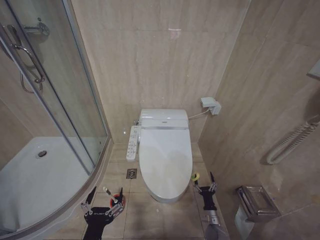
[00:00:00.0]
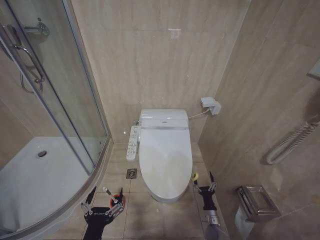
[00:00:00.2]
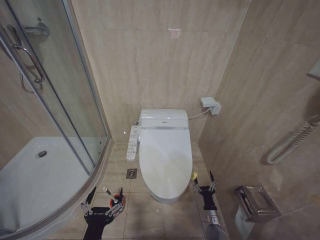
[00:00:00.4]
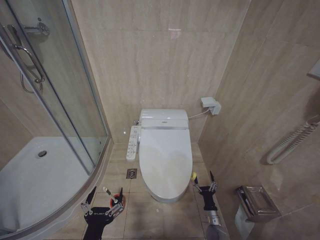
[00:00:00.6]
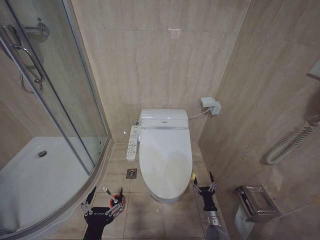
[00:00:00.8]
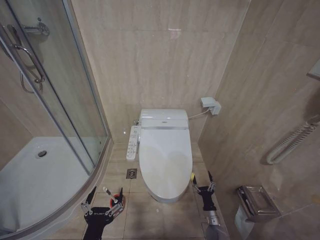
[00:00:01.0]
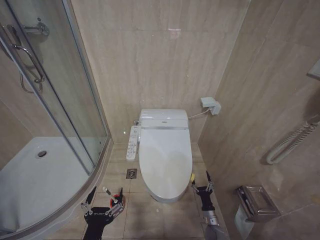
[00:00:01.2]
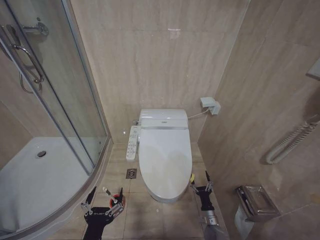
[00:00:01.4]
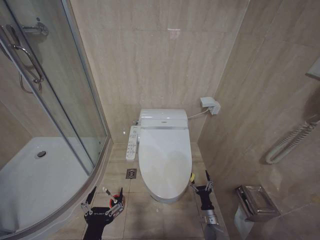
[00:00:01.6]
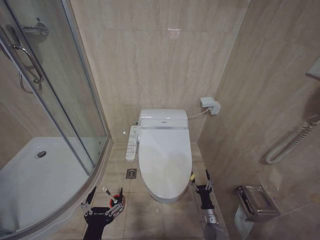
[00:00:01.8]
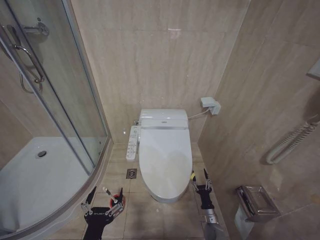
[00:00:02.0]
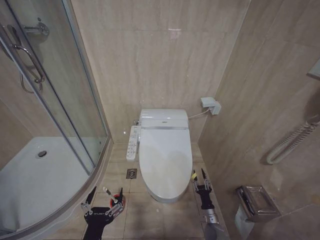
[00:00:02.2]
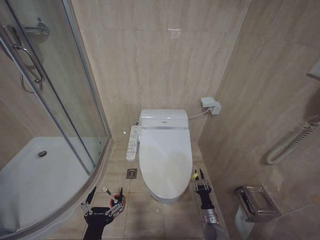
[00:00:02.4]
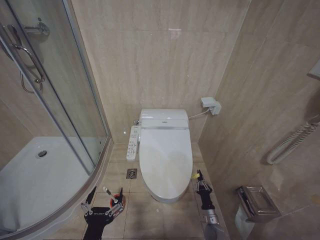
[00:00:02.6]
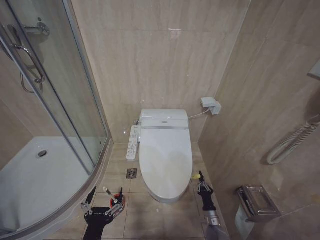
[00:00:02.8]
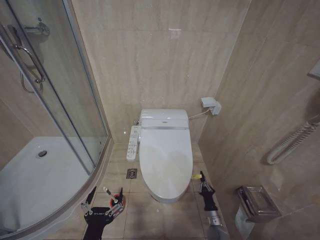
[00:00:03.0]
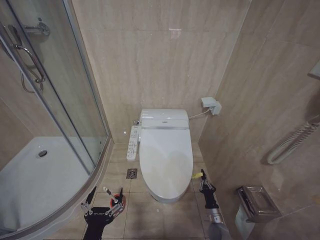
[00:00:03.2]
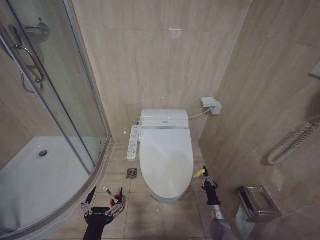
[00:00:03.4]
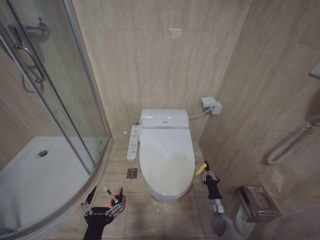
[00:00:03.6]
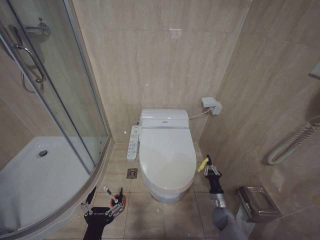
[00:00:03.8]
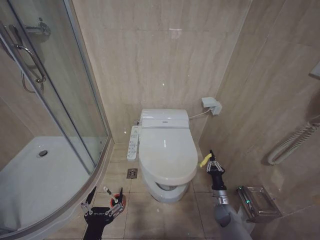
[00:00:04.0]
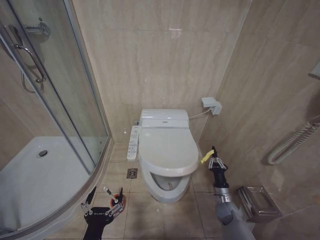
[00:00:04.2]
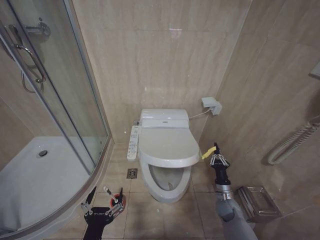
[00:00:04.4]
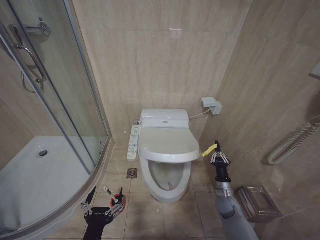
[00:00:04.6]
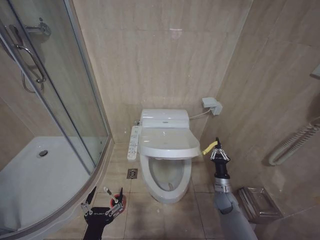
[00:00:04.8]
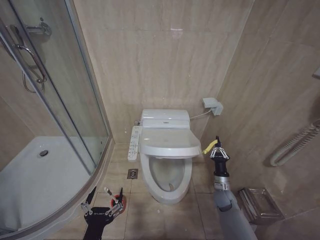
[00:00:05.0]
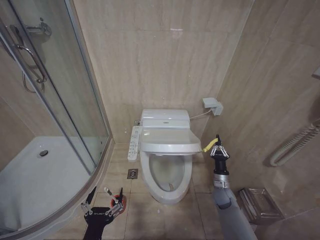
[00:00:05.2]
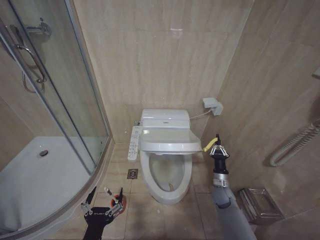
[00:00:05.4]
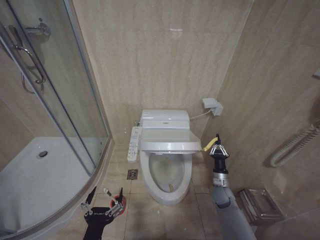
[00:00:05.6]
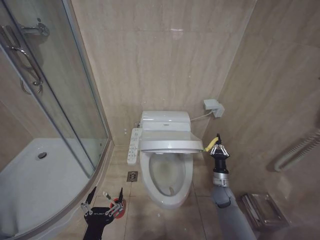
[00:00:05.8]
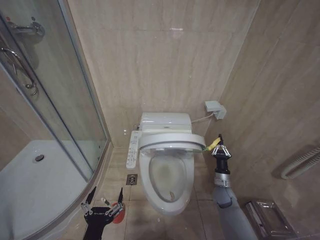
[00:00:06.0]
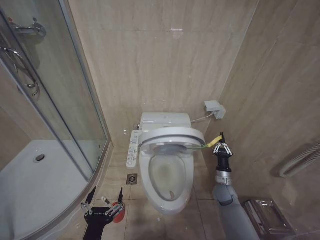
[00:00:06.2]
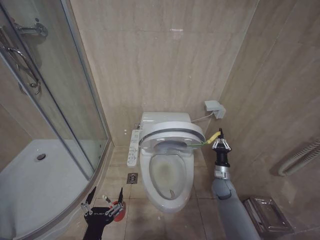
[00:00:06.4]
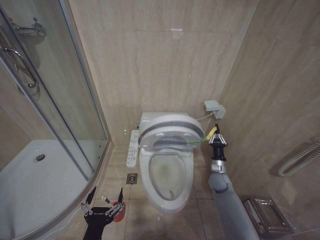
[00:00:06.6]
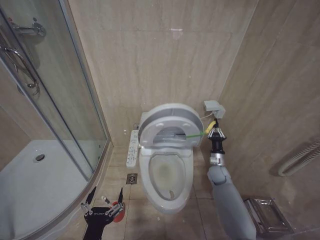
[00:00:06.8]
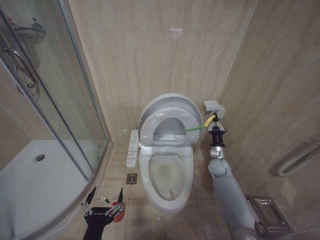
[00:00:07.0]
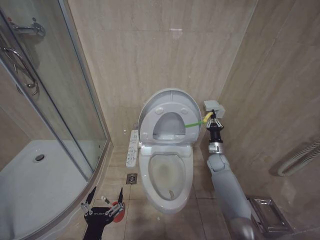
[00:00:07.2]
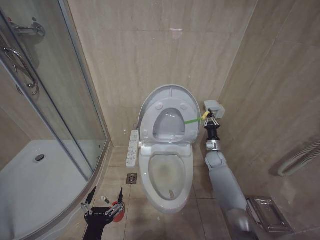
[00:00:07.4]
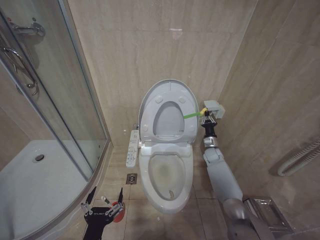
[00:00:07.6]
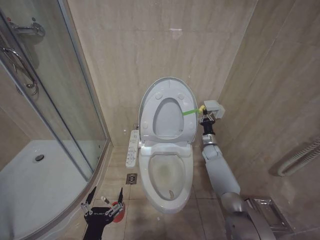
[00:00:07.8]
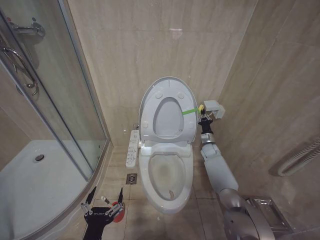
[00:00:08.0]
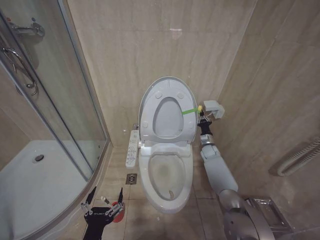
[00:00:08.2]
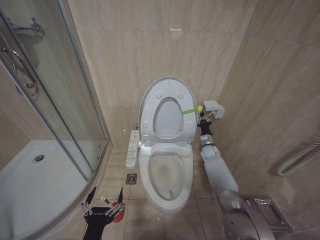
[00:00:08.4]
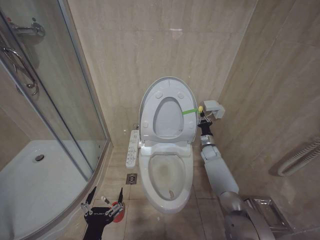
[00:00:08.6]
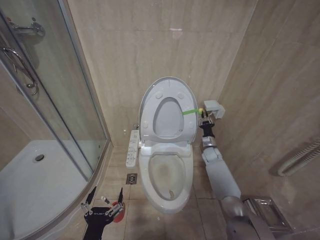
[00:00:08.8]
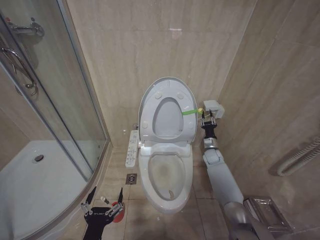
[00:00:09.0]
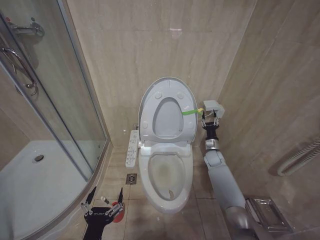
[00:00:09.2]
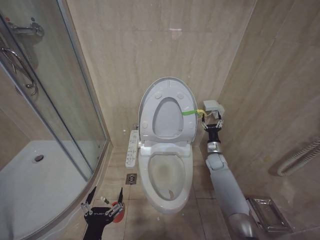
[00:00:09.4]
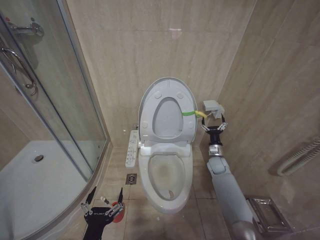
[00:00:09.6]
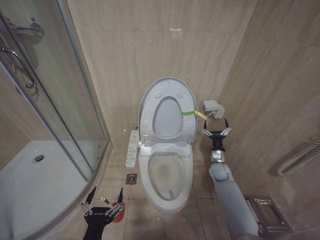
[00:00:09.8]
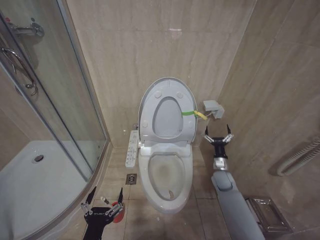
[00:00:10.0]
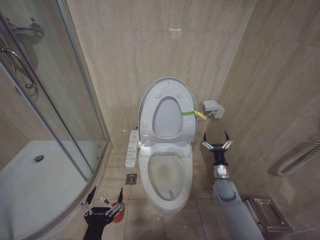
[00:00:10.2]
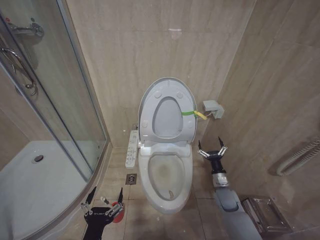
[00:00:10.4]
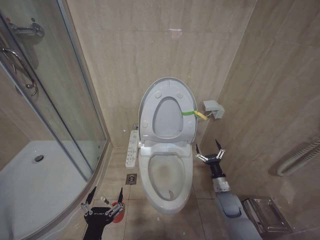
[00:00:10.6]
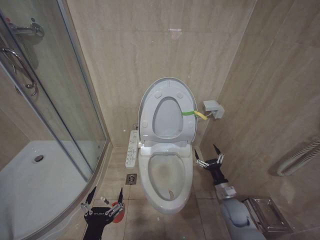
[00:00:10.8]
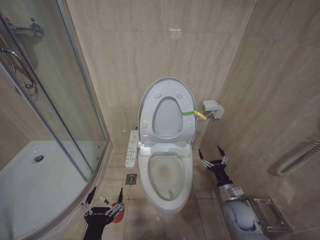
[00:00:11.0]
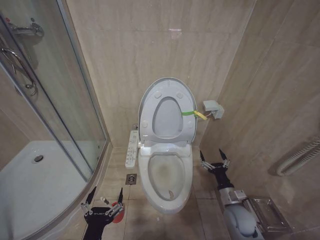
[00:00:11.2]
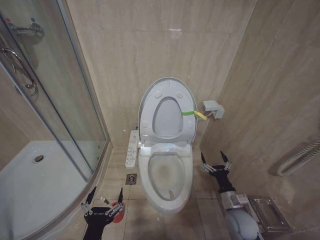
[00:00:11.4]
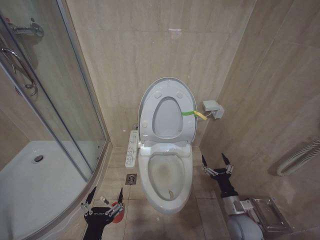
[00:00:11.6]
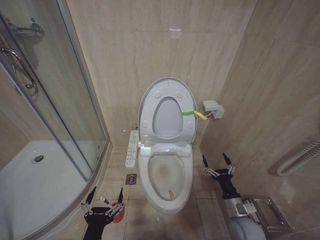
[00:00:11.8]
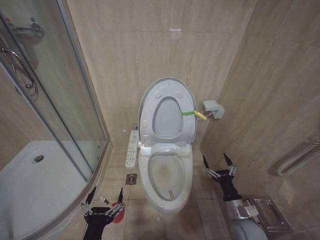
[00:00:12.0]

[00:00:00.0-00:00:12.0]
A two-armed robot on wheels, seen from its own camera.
Task of the whole recording: Open the toilet lid, clean the toilet bowl with a toilet brush, close the toilet lid, and flush.
00:00:01.6 to 00:00:03.0: The right gripper closes.
00:00:03.0 to 00:00:04.4: The right gripper travels upward and forward by roughly 15 cm.
00:00:04.4 to 00:00:06.0: The right gripper shifts by approximately 5 cm.
00:00:06.0 to 00:00:07.6: The right gripper heads forward and upward, covering approximately 20 cm.
00:00:07.6 to 00:00:09.0: The grippers stay close to where they were, moving slightly.
00:00:09.0 to 00:00:10.4: The right gripper moves backward, approximately 20 cm, and opens up.
00:00:10.4 to 00:00:12.0: The right gripper heads backward, covering some 15 cm.

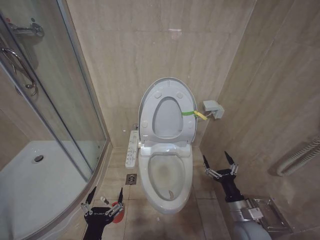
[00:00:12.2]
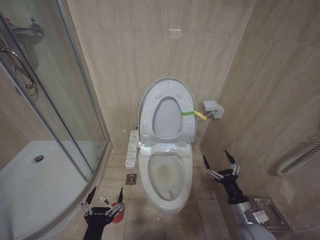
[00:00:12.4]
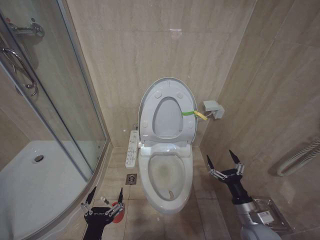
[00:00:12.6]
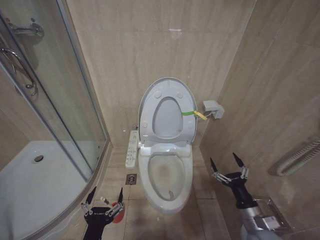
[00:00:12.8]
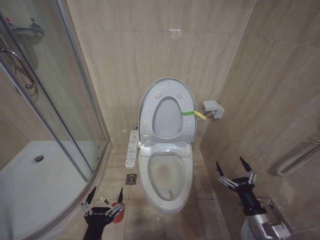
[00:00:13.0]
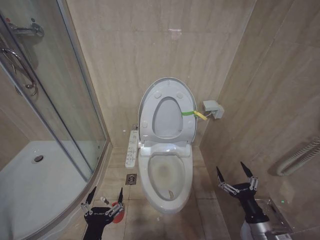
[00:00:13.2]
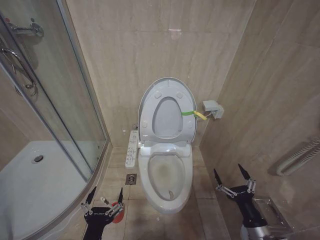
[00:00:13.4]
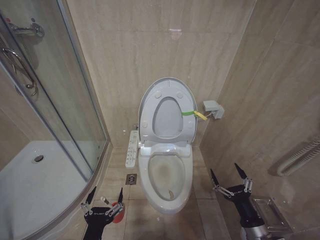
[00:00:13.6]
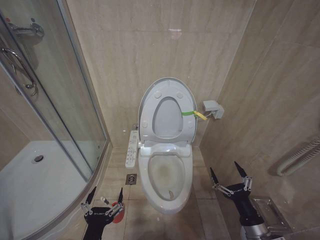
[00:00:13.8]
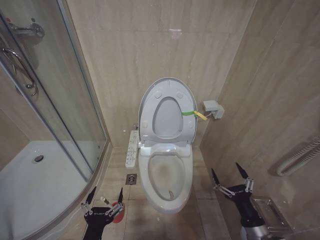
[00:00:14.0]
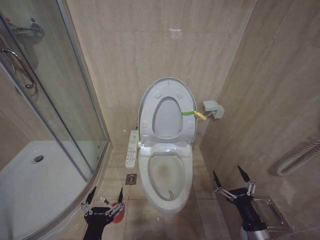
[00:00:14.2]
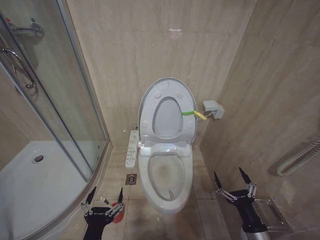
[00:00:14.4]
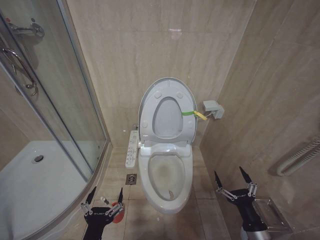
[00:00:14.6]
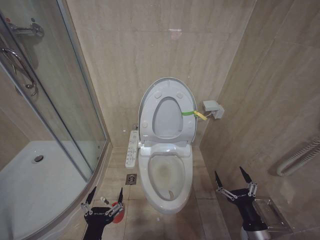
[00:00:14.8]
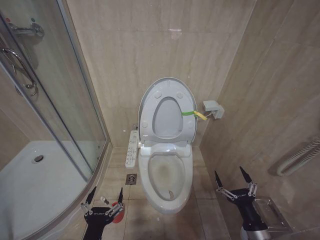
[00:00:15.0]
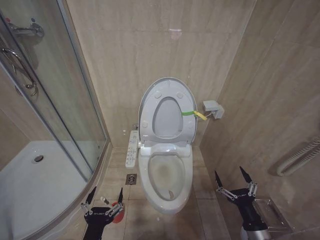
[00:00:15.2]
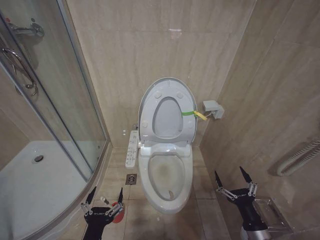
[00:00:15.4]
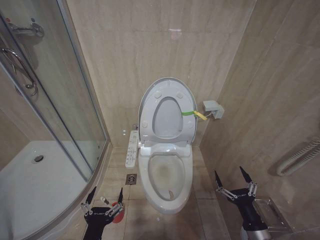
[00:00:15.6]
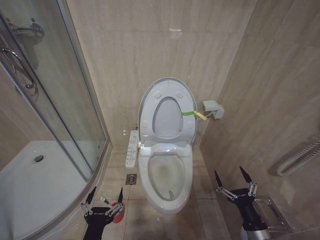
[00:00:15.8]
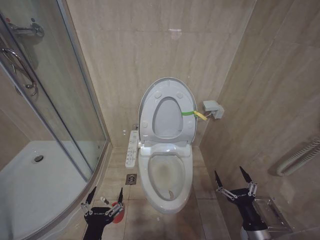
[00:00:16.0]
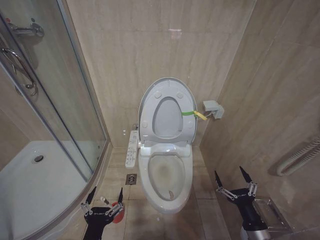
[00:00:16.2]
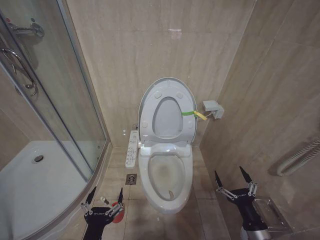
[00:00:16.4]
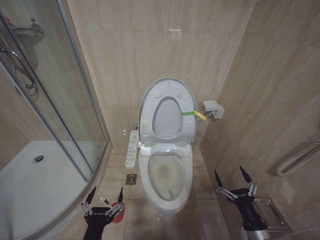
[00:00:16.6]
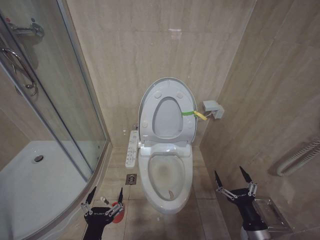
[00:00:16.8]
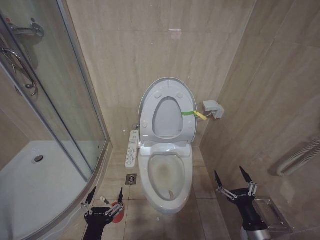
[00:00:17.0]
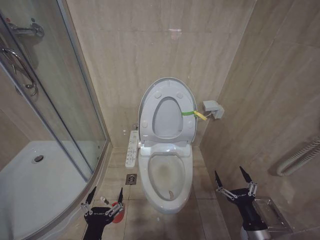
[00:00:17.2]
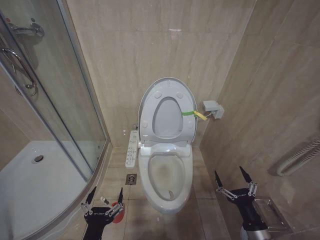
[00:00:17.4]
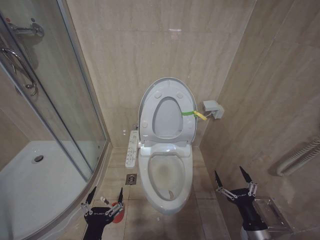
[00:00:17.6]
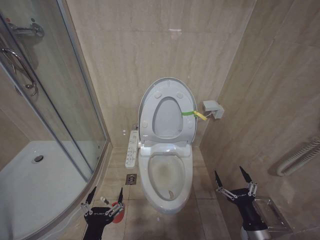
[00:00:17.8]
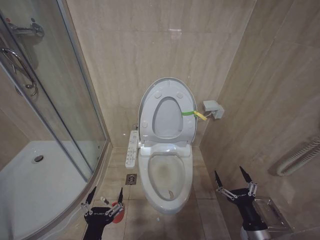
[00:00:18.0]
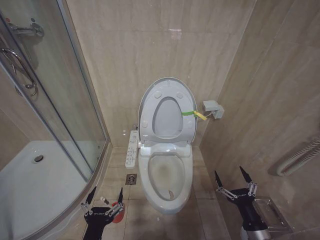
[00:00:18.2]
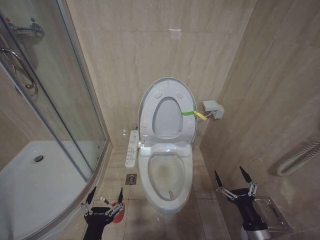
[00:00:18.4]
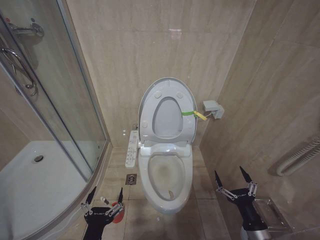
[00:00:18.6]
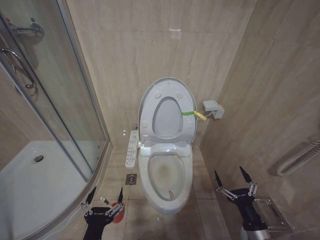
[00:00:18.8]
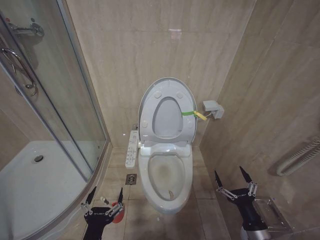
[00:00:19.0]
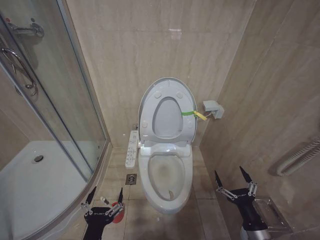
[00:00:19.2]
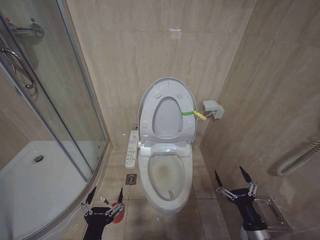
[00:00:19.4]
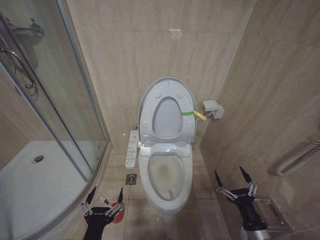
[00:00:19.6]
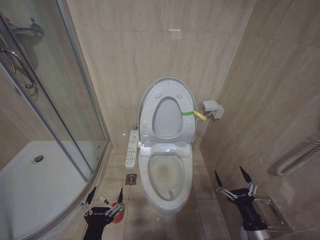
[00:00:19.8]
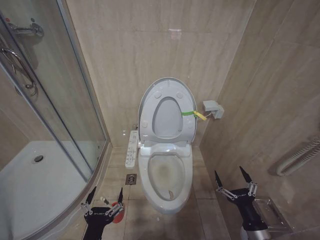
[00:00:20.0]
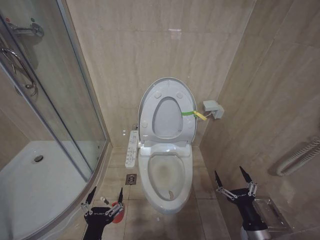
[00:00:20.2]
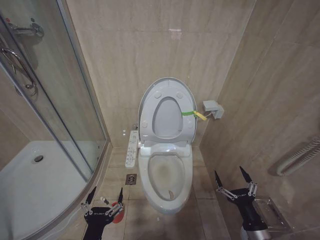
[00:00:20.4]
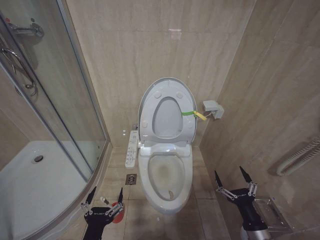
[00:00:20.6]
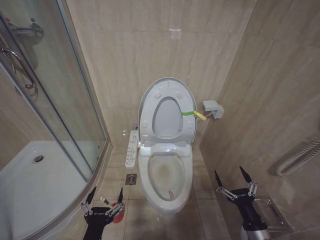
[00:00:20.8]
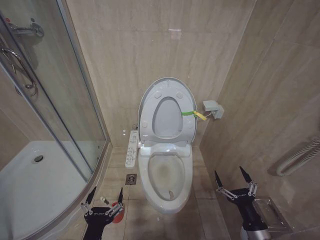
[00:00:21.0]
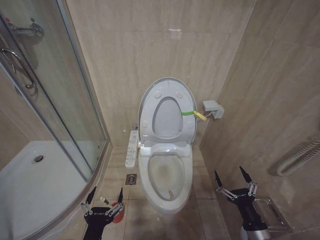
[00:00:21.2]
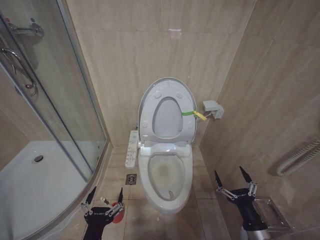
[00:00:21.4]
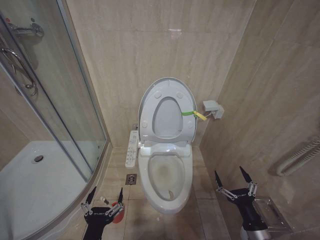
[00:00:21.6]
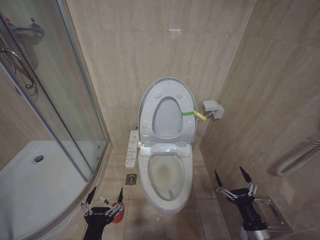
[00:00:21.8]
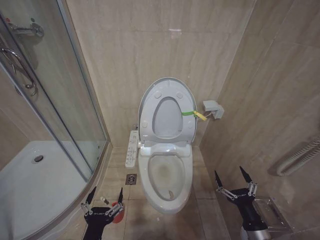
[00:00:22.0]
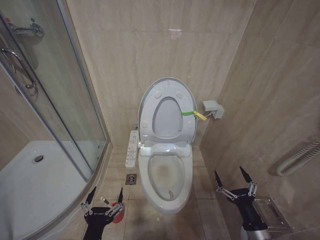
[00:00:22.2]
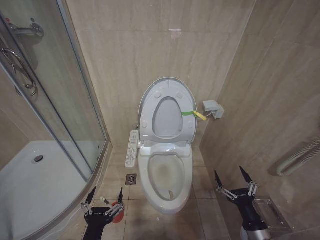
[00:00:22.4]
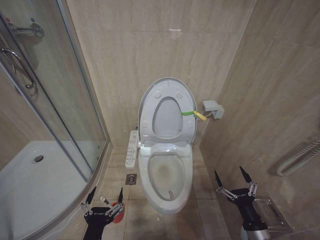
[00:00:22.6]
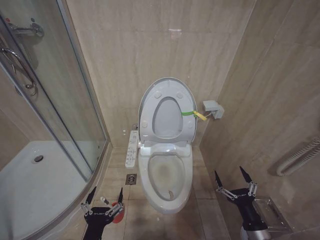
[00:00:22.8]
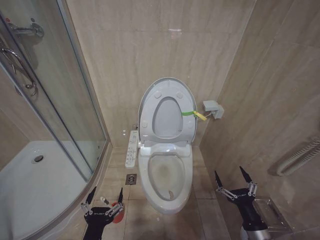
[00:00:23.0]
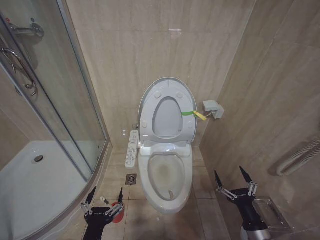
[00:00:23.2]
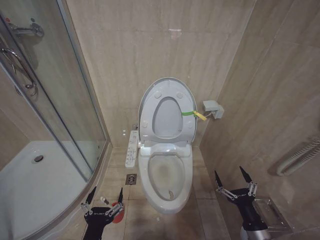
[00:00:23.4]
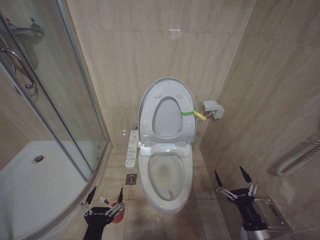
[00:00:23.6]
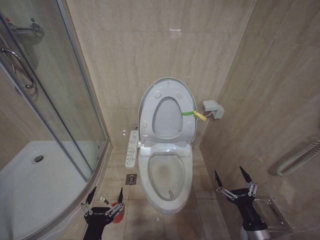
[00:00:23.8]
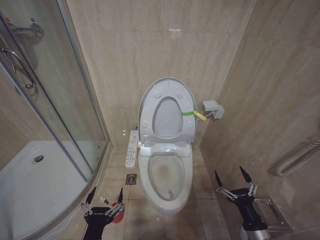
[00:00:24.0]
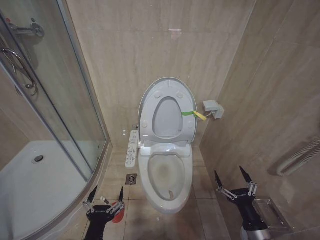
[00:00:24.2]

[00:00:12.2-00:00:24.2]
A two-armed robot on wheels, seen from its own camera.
Task of the whole recording: Open the toilet lid, clean the toilet bowl with a toilet brush, close the toilet lid, and flush.
00:00:12.2 to 00:00:13.8: The right gripper moves backward, some 10 cm.
00:00:15.2 to 00:00:24.2: Both grippers stay put.
